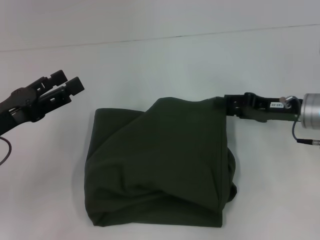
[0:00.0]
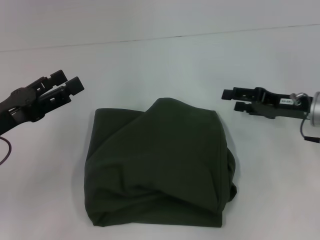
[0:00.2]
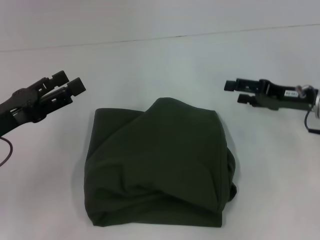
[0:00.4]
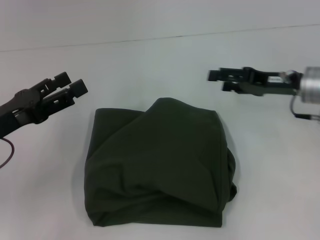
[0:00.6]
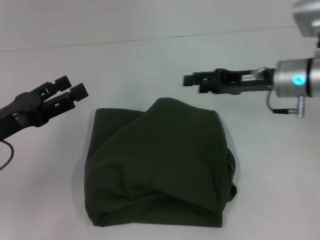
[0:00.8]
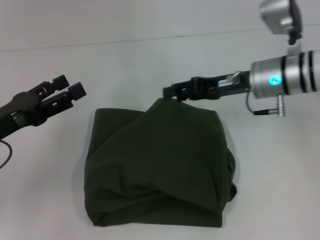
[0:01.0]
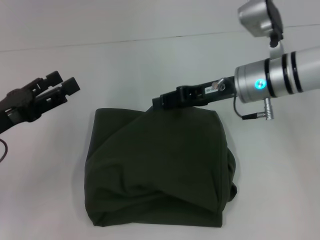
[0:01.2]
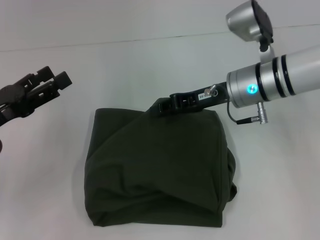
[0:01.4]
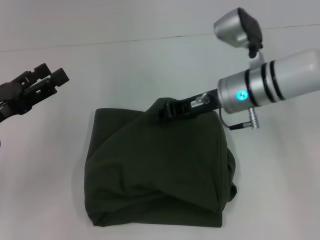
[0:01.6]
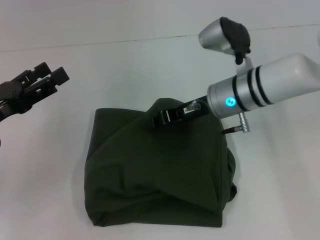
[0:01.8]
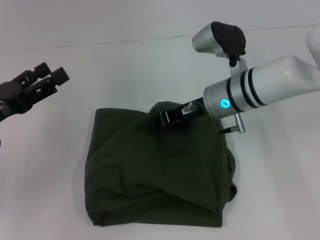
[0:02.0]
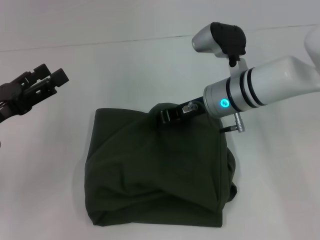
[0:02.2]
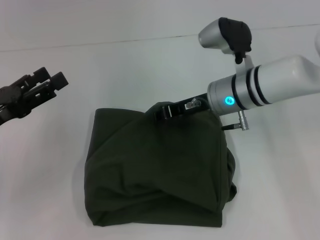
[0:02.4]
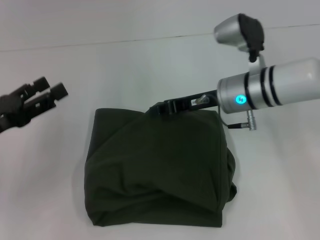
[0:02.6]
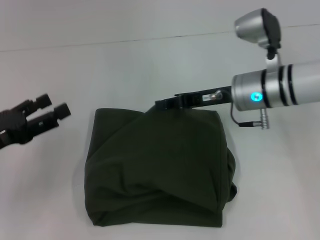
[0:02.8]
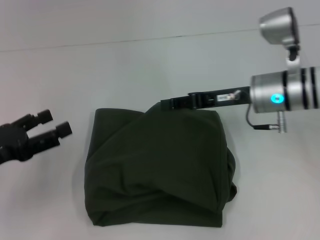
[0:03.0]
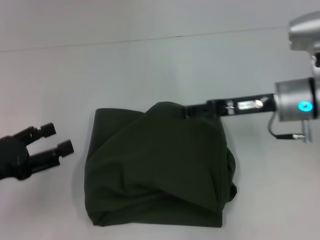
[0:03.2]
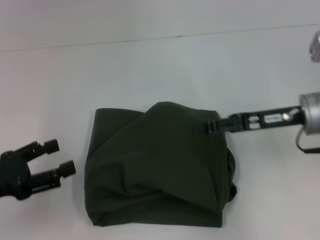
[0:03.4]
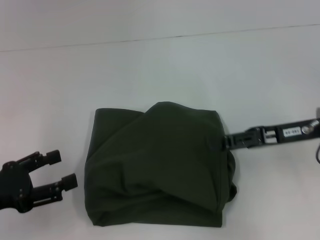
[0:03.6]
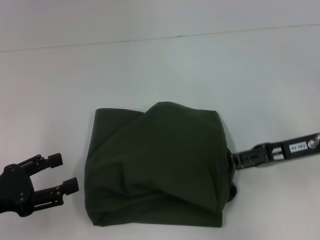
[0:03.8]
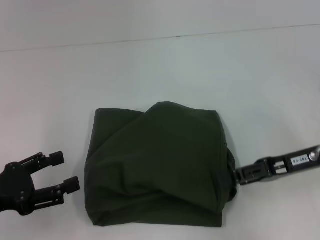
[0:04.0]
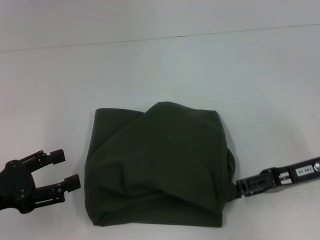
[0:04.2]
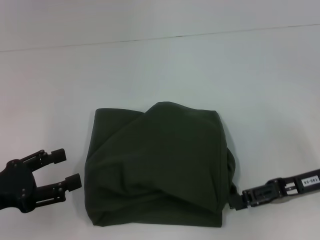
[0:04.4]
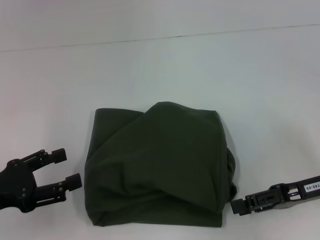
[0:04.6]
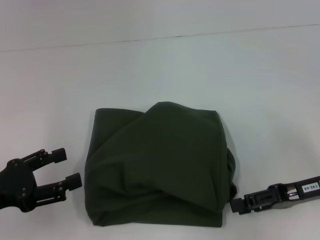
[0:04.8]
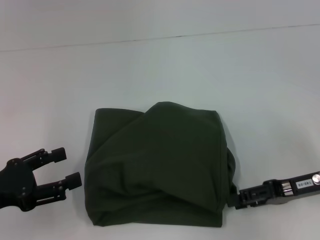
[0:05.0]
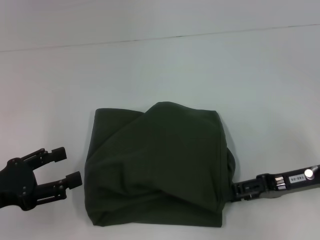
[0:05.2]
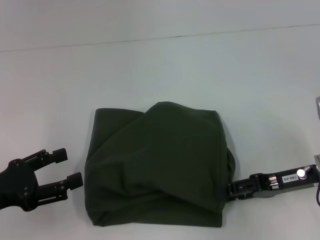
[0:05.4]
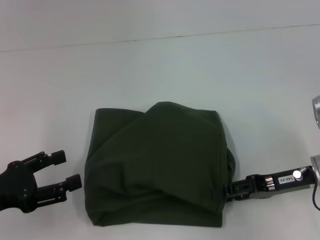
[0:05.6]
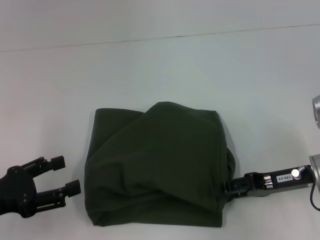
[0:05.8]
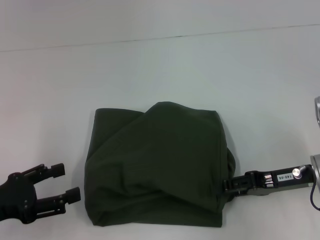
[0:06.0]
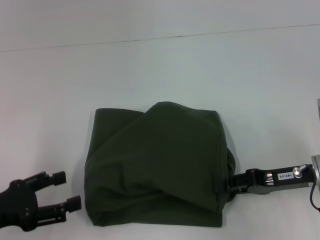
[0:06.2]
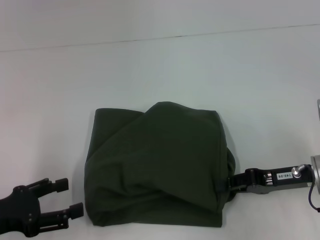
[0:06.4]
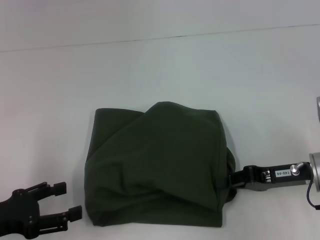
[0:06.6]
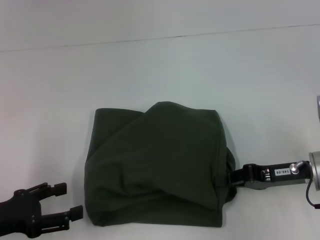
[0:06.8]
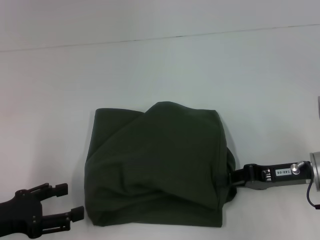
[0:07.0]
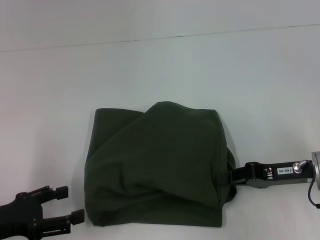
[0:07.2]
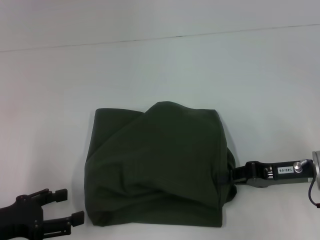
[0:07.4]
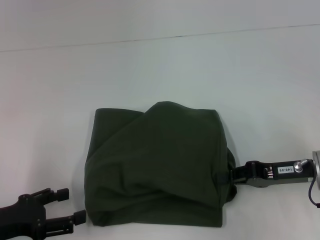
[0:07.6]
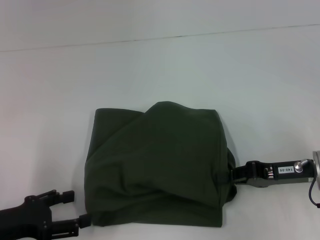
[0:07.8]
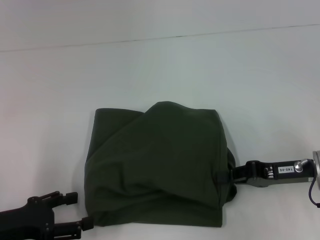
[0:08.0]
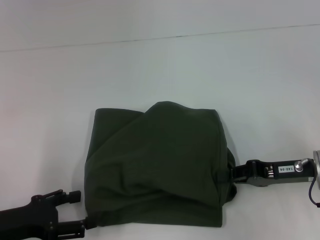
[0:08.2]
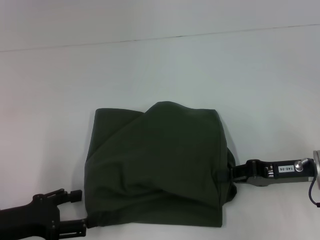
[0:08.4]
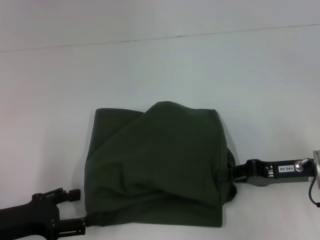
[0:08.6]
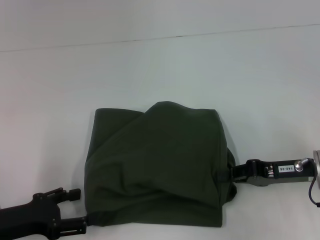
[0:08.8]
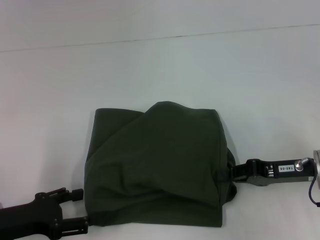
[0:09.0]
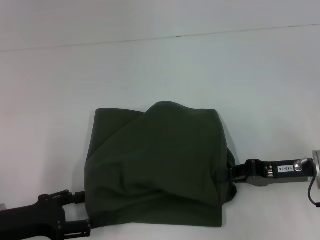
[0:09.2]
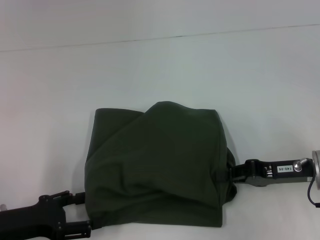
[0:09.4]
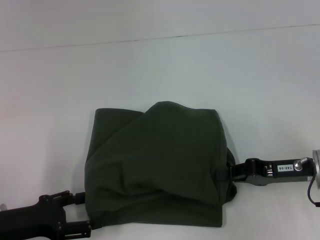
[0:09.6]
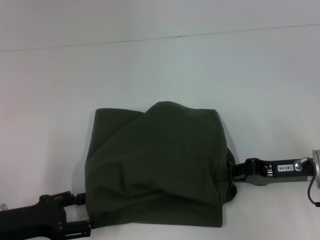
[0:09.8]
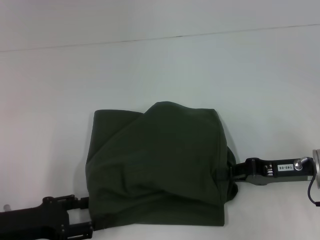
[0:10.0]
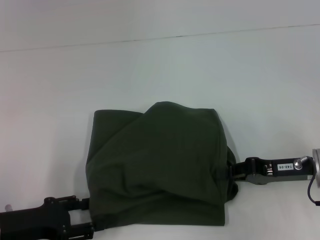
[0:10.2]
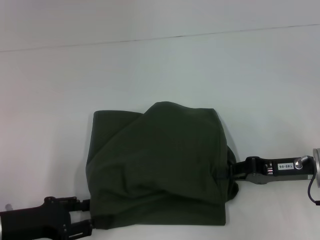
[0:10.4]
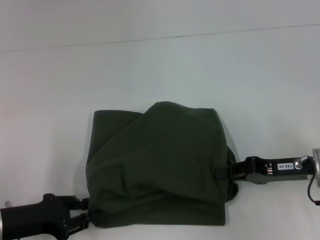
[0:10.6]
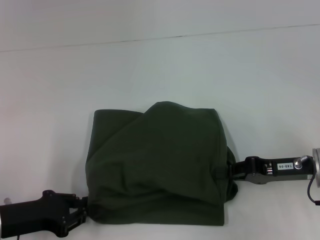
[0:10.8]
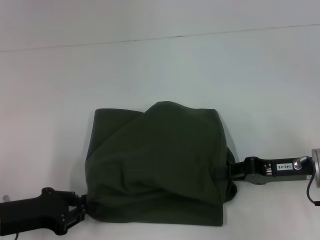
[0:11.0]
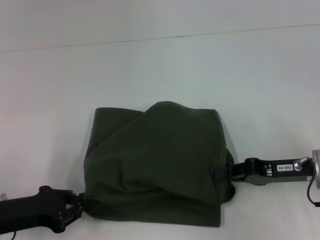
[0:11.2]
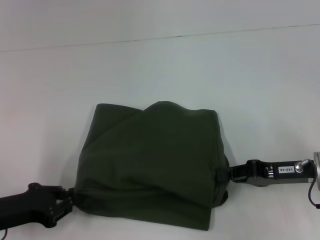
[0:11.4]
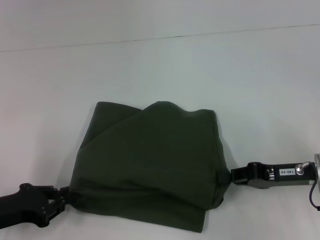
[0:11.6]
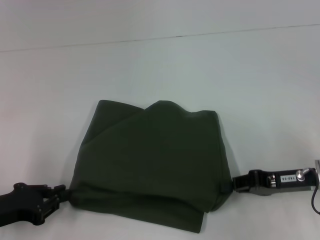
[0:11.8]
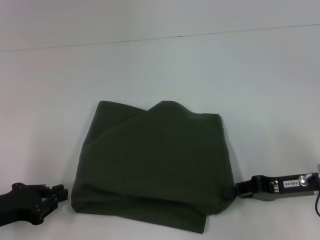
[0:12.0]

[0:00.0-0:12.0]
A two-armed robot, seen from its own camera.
0:00.0 to 0:01.6: The right gripper moves to the left, roughly 15 cm, and opens, then closes again.
0:01.6 to 0:03.0: The right gripper changes place by some 5 cm.
0:03.0 to 0:04.4: The right gripper heads backward and to the right, covering approximately 15 cm, and opens its fingers.
0:04.4 to 0:06.0: There are only small adjustments of the grippers.
0:06.0 to 0:07.6: The right gripper closes.
0:07.6 to 0:09.0: The grippers stay close to where they were, moving slightly.
0:09.0 to 0:10.4: Both grippers stay about where they are.
0:10.4 to 0:12.0: The left gripper closes up.

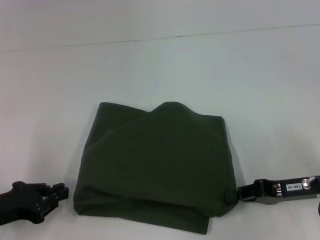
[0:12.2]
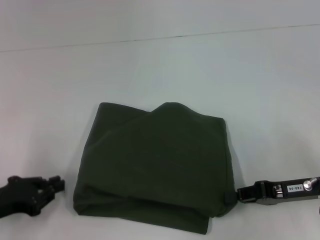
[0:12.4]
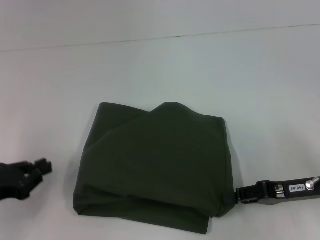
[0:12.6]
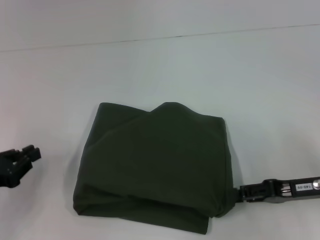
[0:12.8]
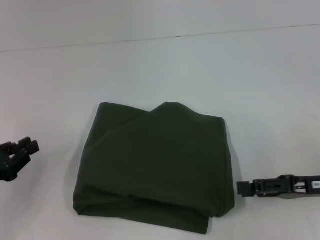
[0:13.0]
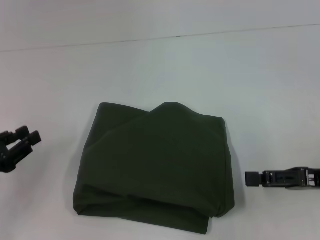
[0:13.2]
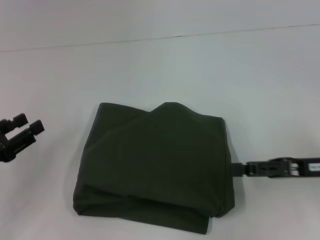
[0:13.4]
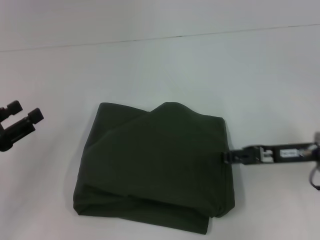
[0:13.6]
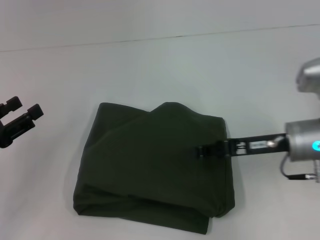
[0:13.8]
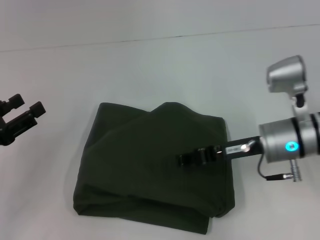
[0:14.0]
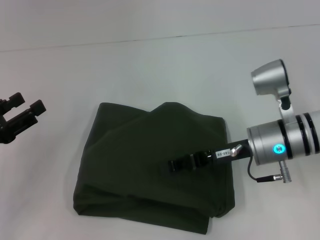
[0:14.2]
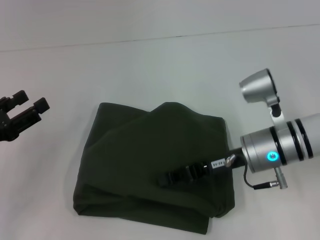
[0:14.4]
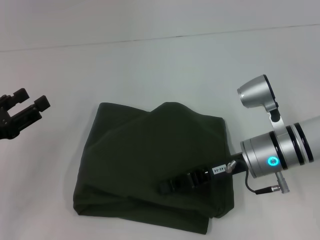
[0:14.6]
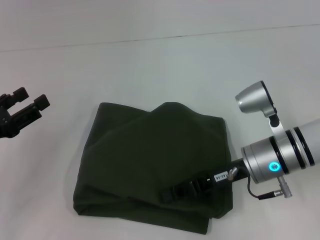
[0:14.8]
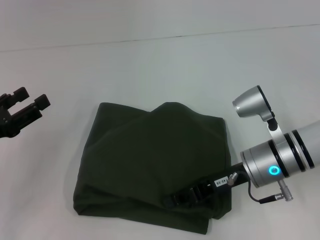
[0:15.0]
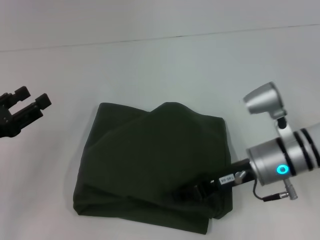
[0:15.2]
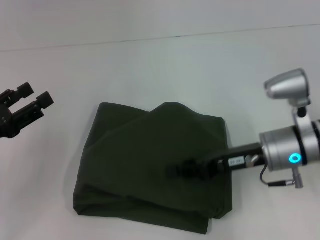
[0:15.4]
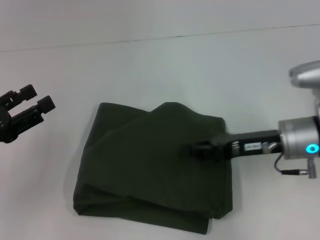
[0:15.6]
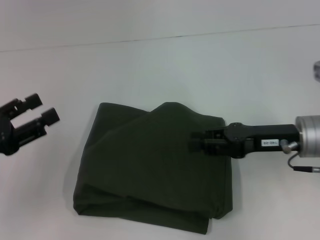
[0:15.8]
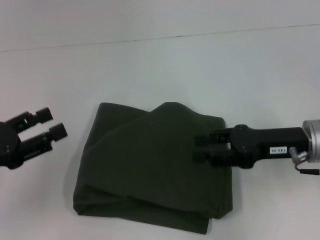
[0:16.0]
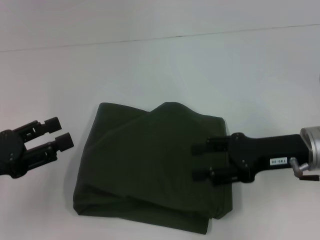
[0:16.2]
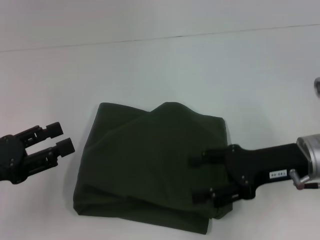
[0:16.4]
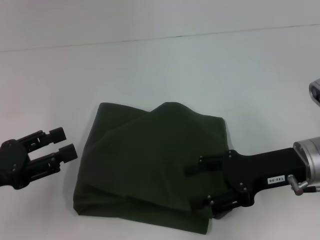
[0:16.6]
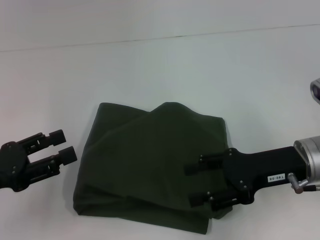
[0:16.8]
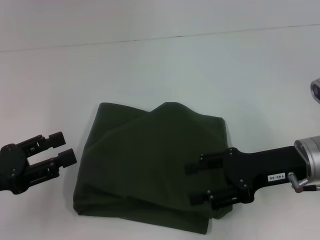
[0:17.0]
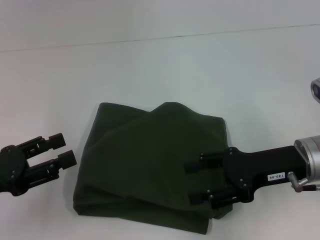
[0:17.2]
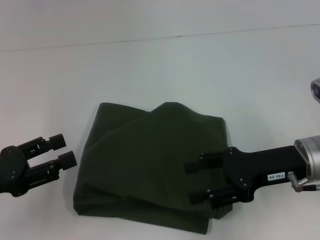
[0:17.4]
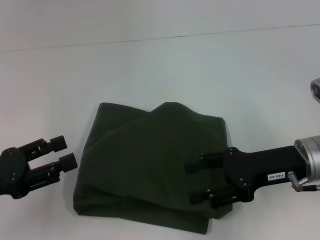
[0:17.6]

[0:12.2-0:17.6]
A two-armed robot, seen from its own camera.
0:12.2 to 0:13.6: The left gripper opens up. The right gripper moves approximately 5 cm, and opens.
0:13.6 to 0:15.0: The right gripper is displaced to the left by about 10 cm, and closes up.
0:15.0 to 0:16.2: The right gripper shifts roughly 5 cm to the right, and opens its fingers.
0:16.2 to 0:17.6: The grippers stay close to where they were, moving slightly.

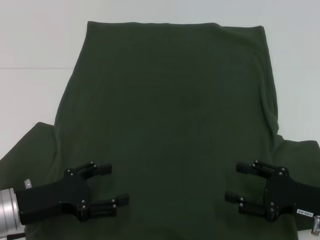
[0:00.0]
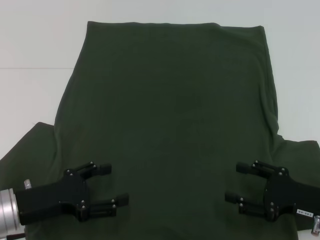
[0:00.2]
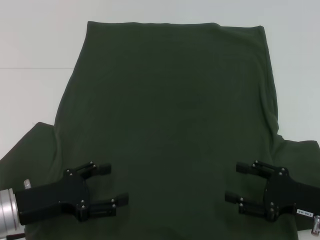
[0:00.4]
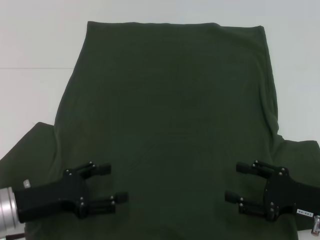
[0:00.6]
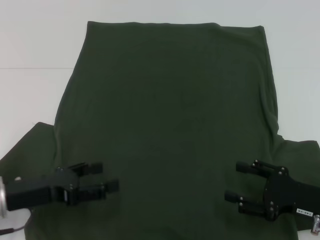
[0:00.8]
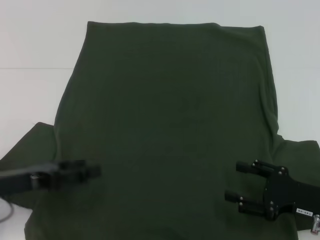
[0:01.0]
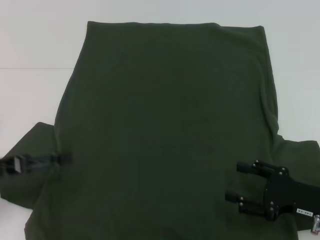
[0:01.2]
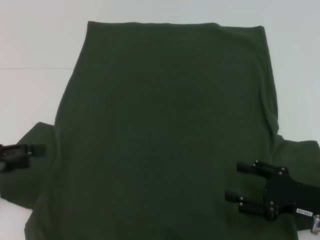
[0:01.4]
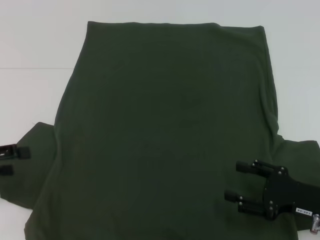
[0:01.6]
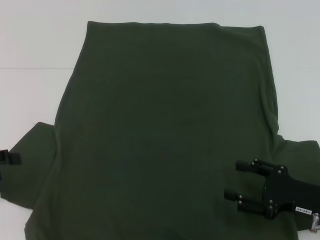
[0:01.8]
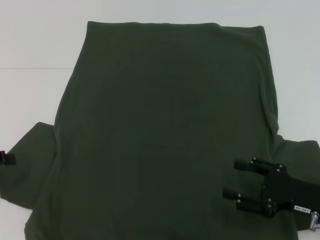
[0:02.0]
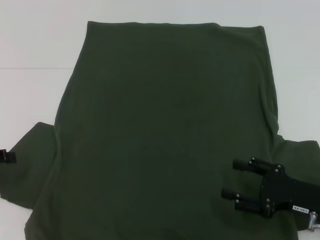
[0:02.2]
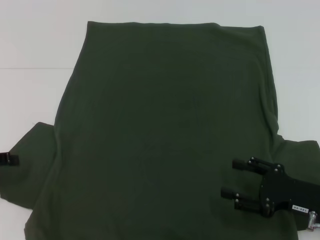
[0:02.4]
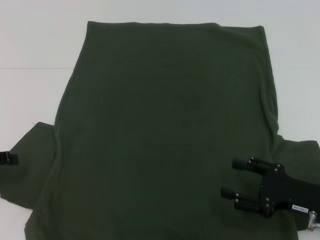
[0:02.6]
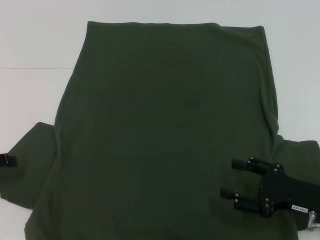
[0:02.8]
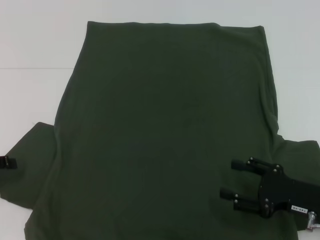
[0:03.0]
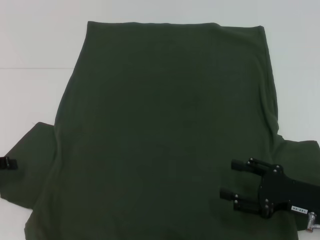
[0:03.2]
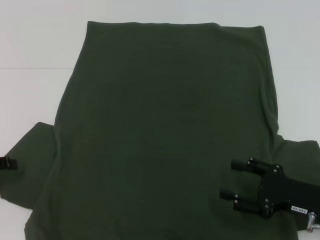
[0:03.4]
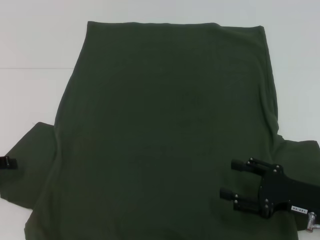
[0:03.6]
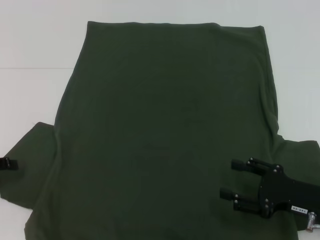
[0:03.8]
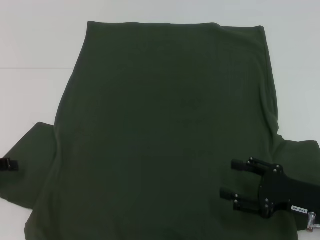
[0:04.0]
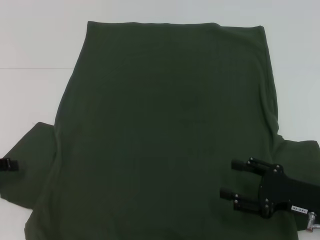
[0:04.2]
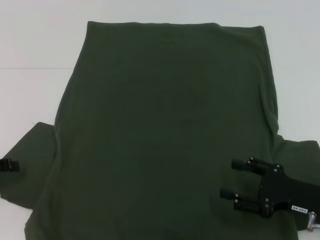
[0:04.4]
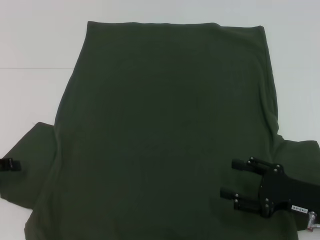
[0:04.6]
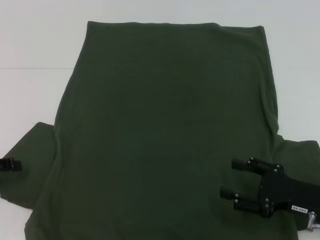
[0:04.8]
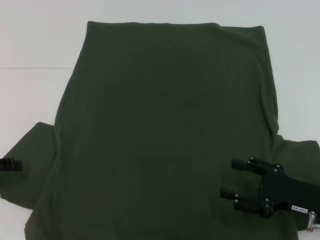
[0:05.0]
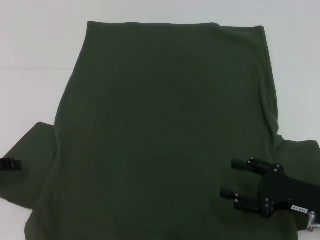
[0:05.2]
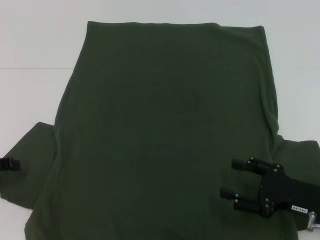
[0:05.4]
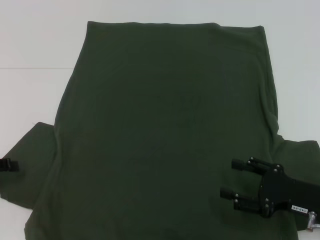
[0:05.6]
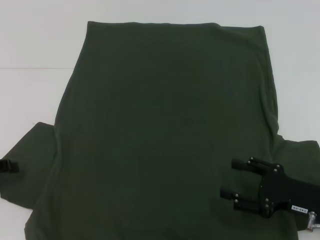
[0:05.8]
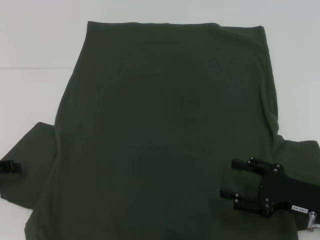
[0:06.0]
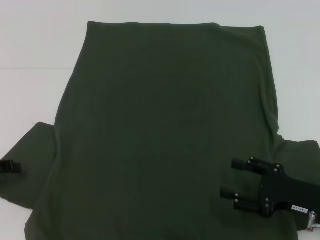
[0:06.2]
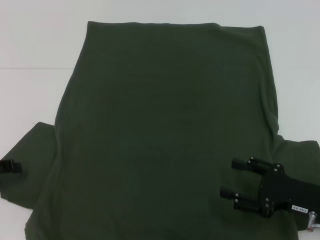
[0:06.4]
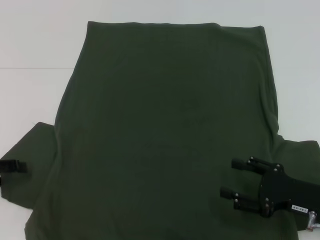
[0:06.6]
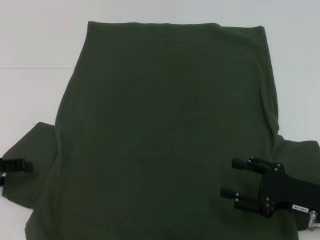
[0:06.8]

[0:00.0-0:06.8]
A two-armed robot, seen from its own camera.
0:00.0 to 0:01.4: The left gripper shifts about 10 cm to the left and upward.
0:02.8 to 0:05.4: Both grippers stay about where they are.
